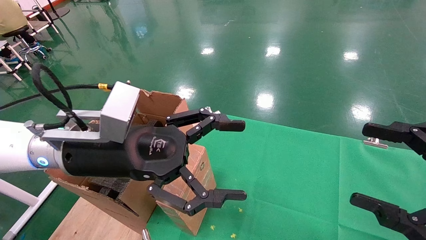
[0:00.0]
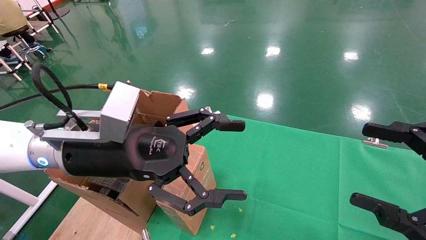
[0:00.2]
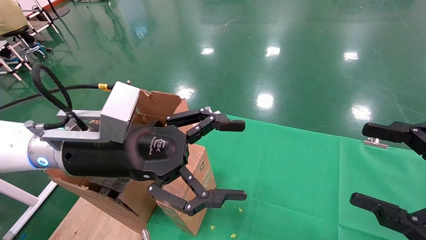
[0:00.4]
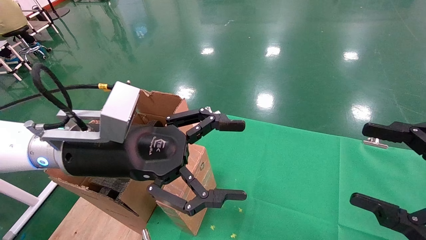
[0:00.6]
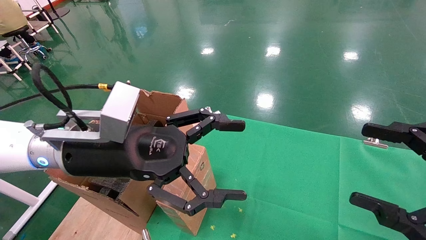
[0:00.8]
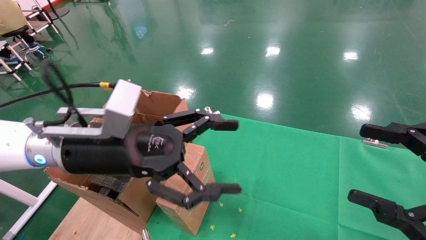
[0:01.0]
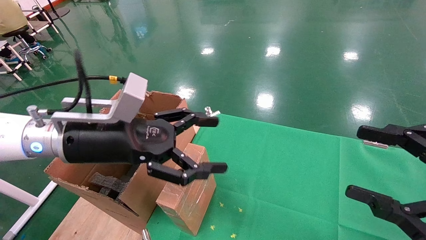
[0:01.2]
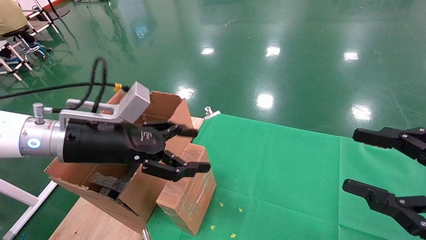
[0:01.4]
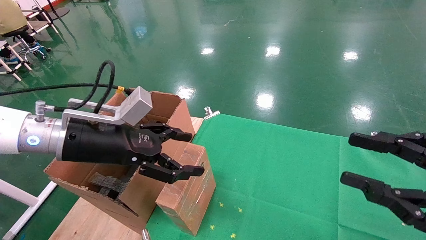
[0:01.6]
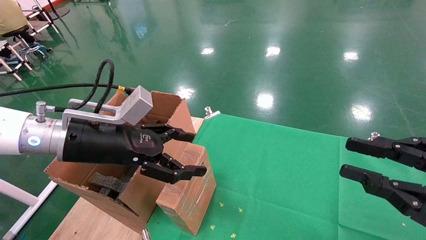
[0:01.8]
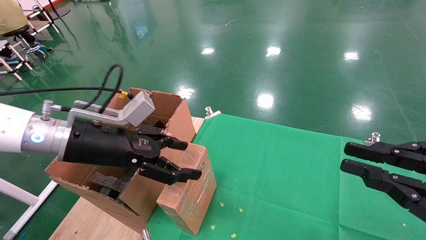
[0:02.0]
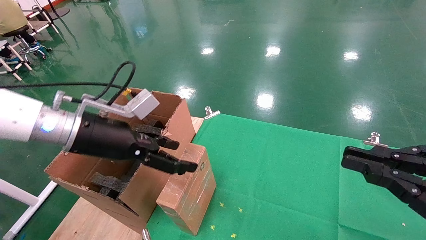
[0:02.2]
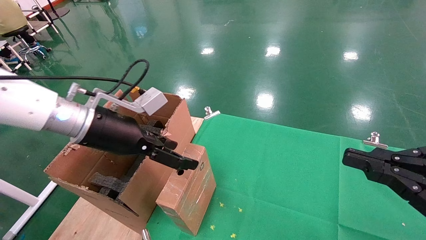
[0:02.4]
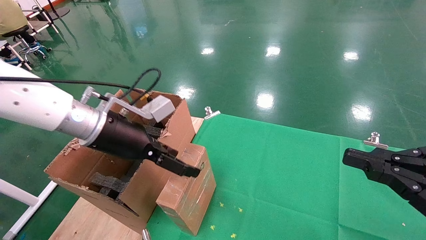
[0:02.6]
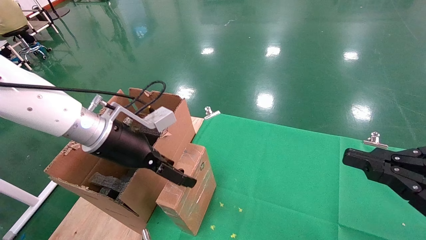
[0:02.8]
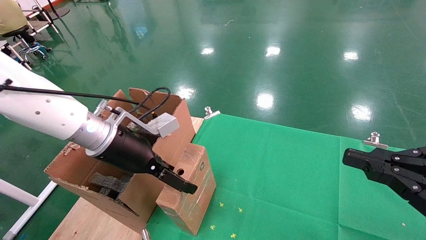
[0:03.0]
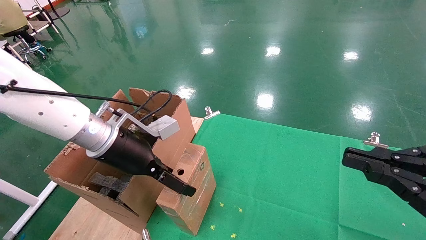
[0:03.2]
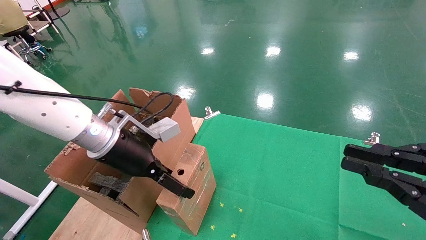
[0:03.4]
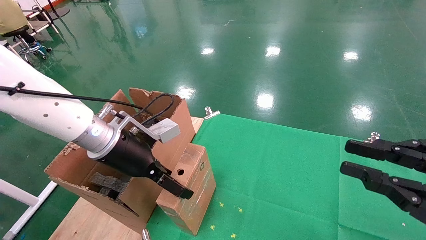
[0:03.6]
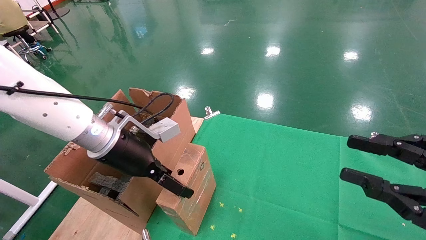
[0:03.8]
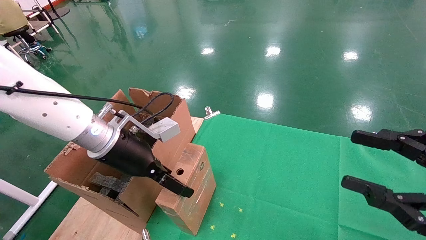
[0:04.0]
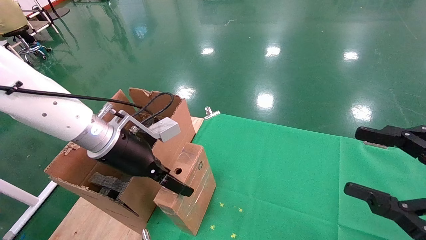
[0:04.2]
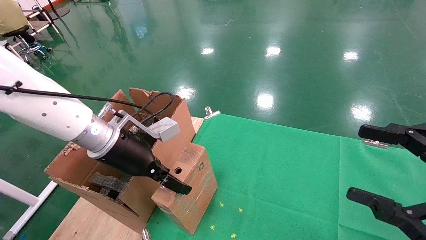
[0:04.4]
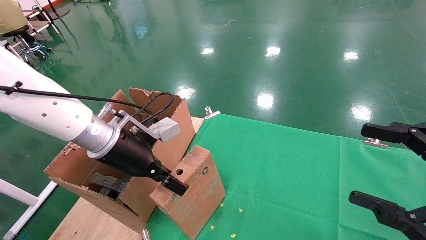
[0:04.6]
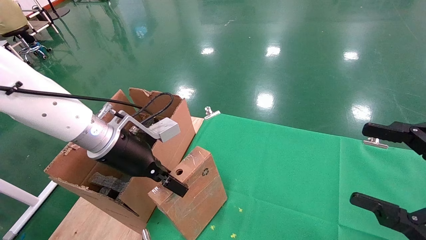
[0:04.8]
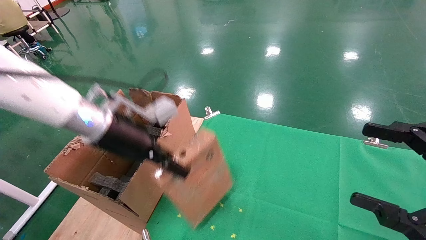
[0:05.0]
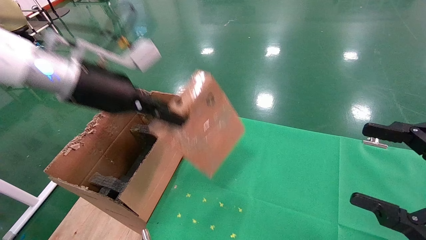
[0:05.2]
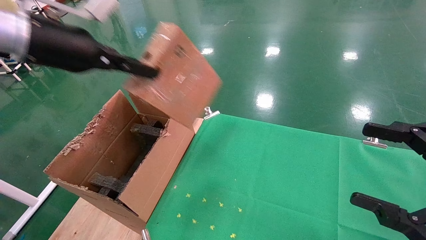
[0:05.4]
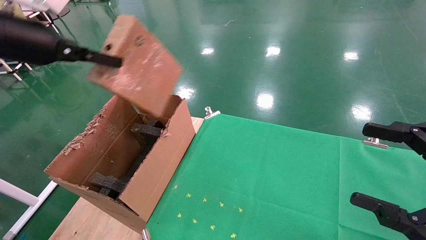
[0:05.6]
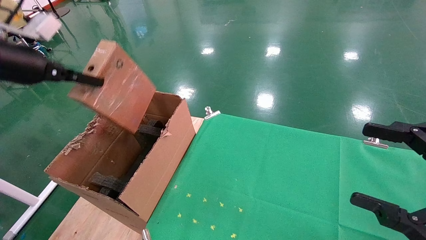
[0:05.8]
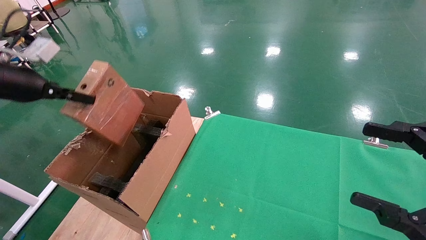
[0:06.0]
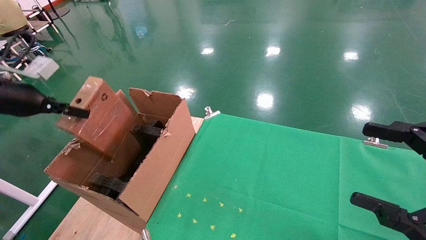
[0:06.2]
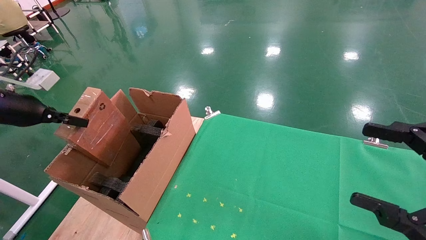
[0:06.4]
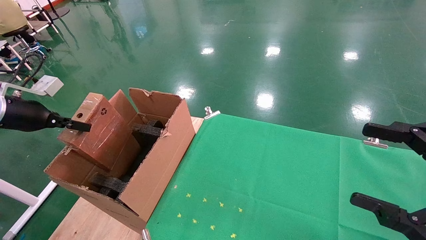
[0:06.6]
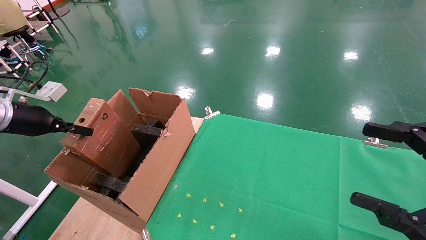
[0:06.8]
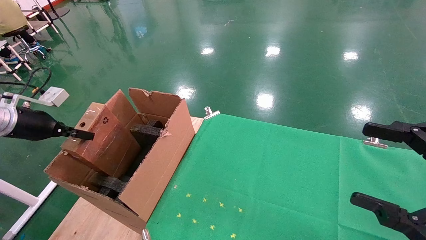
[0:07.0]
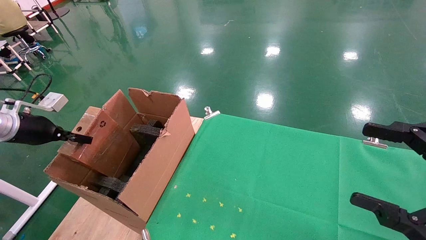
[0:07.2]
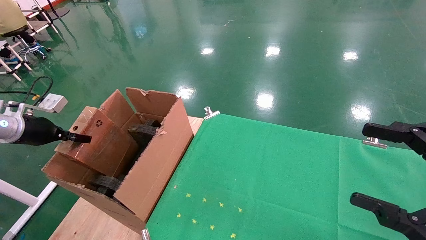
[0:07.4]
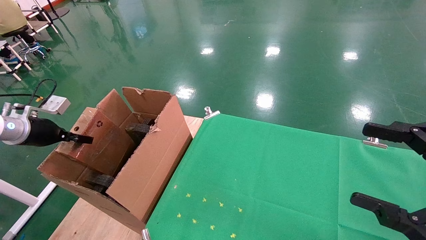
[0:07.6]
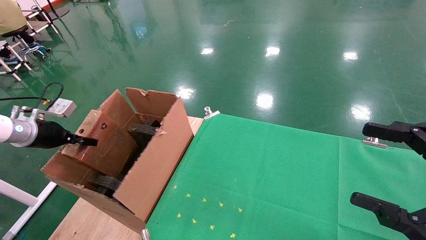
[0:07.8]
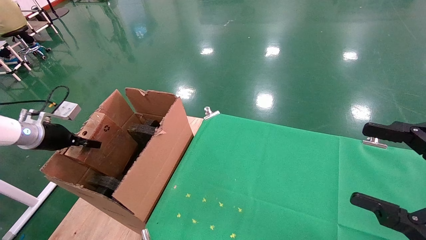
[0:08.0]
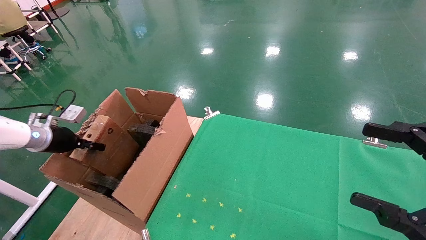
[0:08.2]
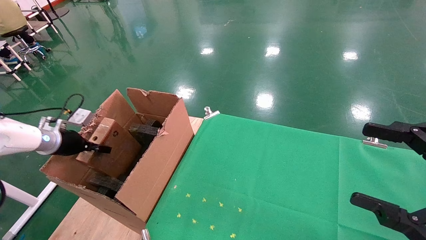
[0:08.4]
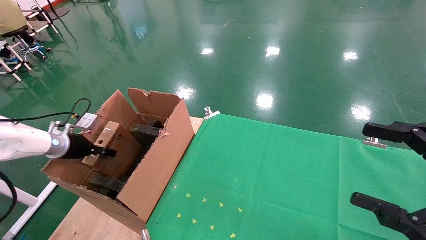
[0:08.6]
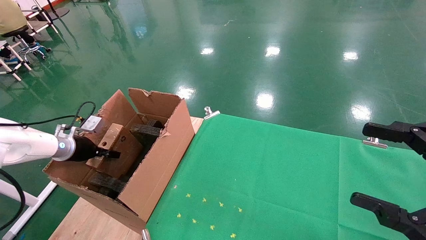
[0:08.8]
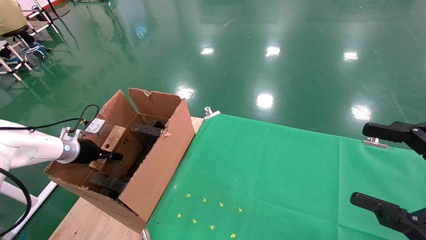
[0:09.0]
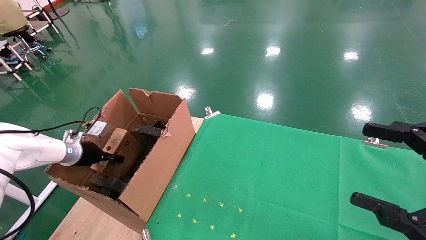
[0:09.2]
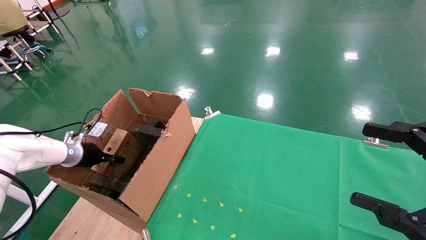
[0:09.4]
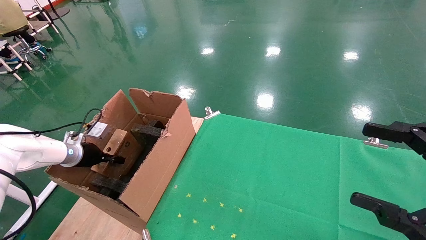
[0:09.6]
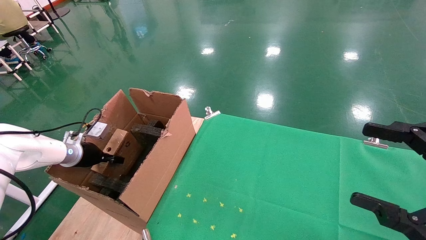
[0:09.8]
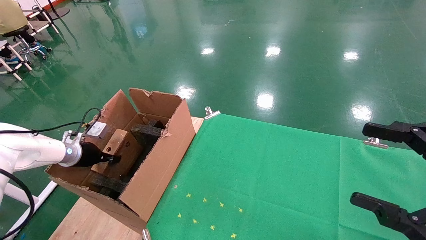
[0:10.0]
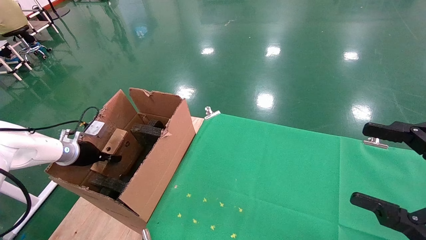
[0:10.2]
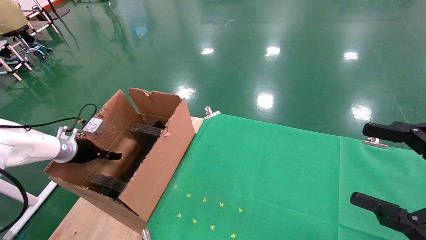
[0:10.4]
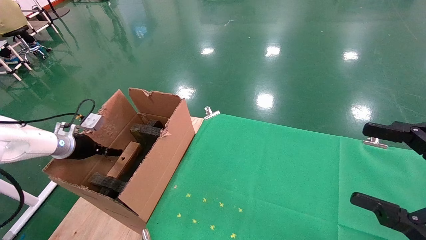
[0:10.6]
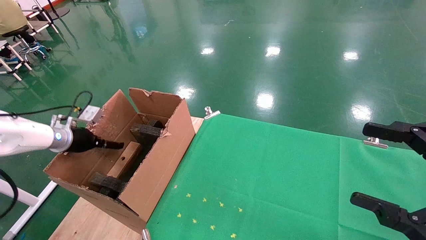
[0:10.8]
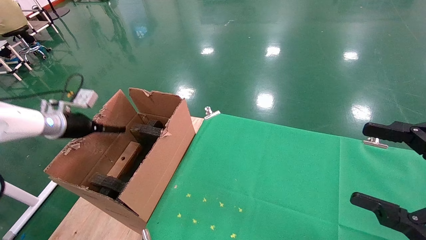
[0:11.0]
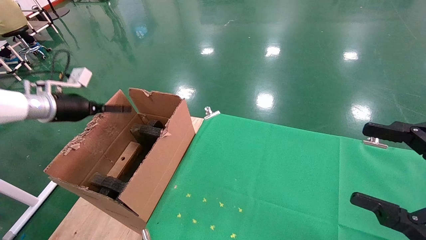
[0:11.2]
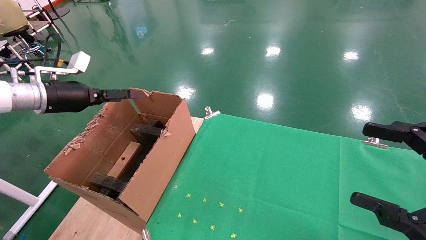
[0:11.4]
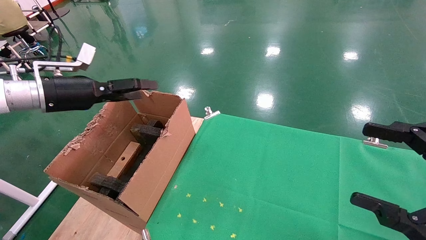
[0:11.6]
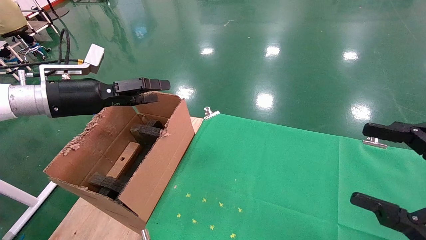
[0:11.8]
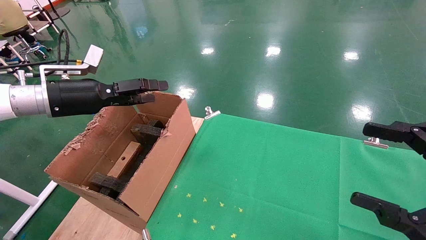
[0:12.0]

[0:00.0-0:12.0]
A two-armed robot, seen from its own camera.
Task of the whole recording: using a robotic arm to pick up a cardboard box and palace it the carton.
Step, 0:01.2 to 0:04.6: Pick up the mouse and the power cord paper box.
Step, 0:04.8 to 0:11.4: Place the mouse and the power cord paper box into the container.
0:00.0 to 0:01.6: The right gripper closes its fingers; the left gripper travels to the left by about 5 cm.
0:01.6 to 0:03.0: The left gripper moves approximately 5 cm. The right gripper closes.
0:03.0 to 0:04.4: The right gripper opens up, while the left gripper closes up.
0:04.4 to 0:06.0: The left gripper moves to the left and upward, roughly 25 cm, and closes its fingers.
0:06.0 to 0:07.6: The left gripper moves downward and to the left, some 15 cm.
0:07.6 to 0:09.0: The left gripper moves downward, forward and to the right, some 10 cm.
0:09.0 to 0:10.4: The left gripper opens its fingers.
0:10.4 to 0:12.0: The left gripper travels upward, to the right and backward by some 20 cm, and opens.

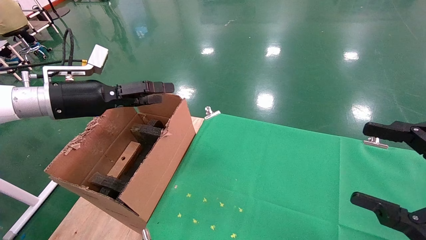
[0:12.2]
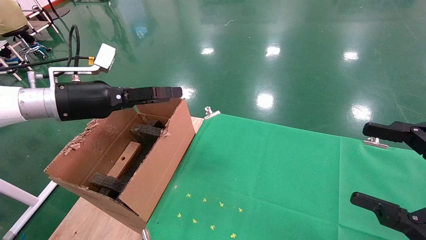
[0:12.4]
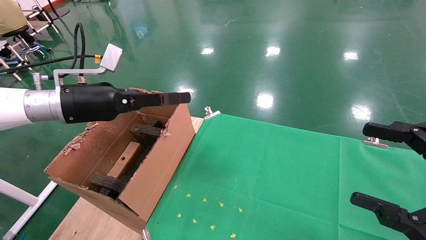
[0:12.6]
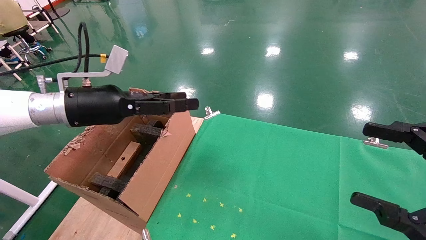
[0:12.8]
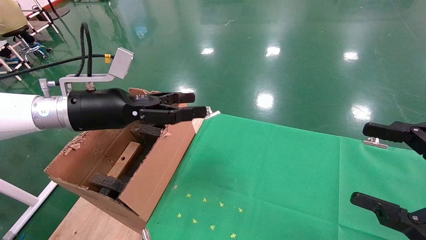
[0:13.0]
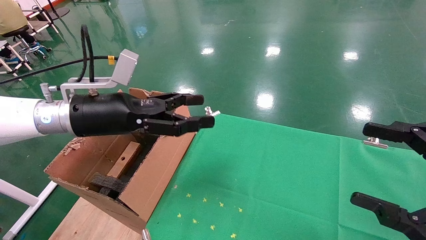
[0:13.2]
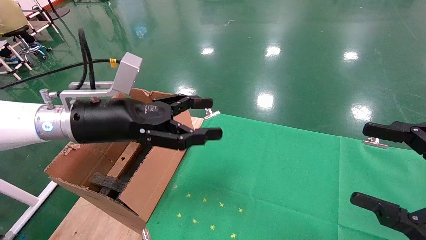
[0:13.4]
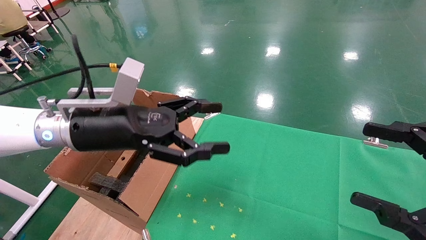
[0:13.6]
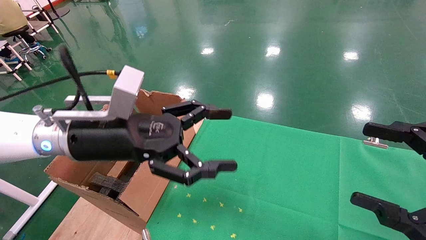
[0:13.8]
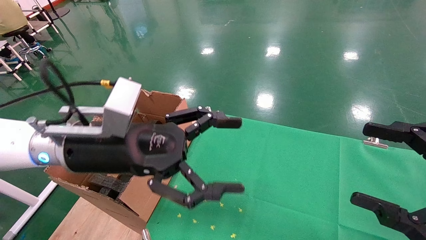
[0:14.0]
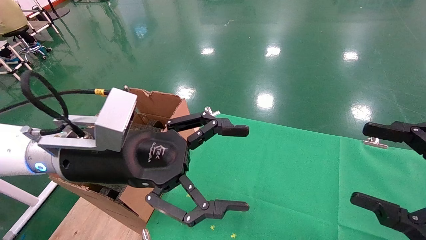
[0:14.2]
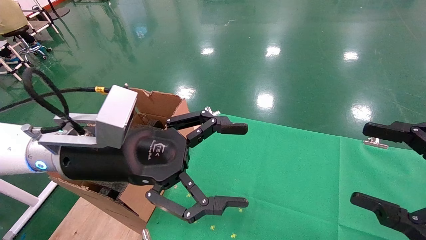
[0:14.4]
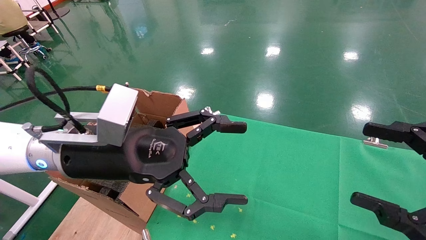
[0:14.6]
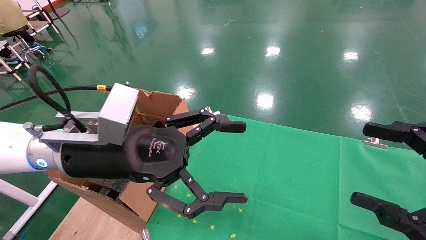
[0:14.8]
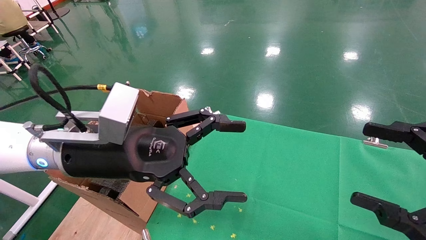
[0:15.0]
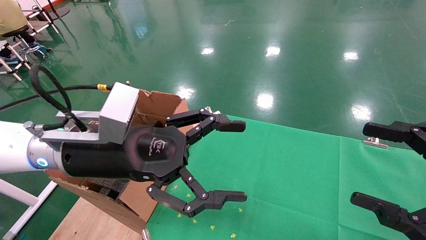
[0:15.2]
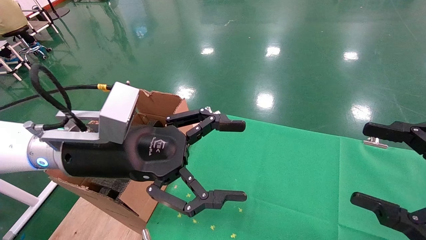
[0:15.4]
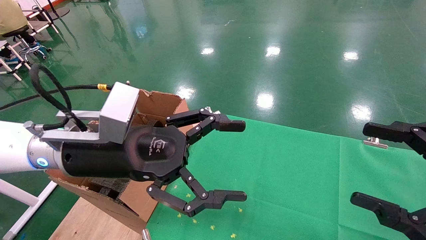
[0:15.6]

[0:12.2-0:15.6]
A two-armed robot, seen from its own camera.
Task of the whole recording: using a robotic arm to pick up a cardboard box and palace it the carton.
0:12.2 to 0:13.8: The left gripper shifts some 15 cm to the right and backward.
0:13.8 to 0:15.6: The grippers stay close to where they were, moving slightly.

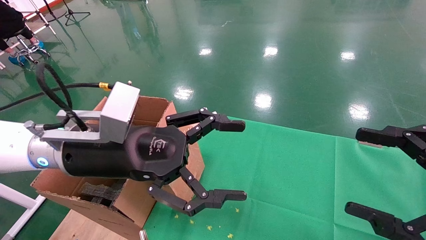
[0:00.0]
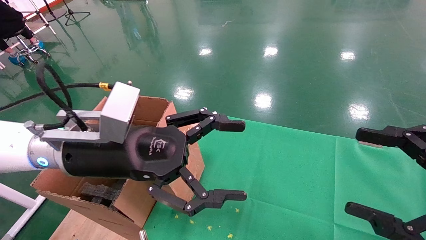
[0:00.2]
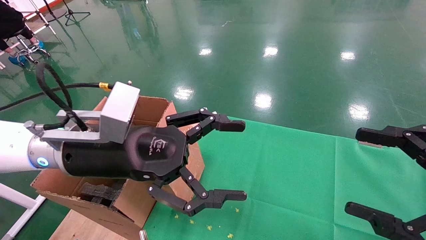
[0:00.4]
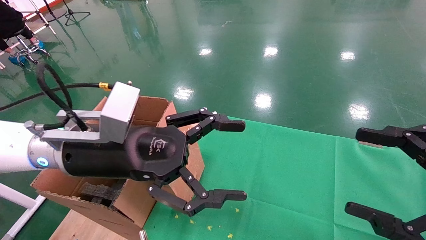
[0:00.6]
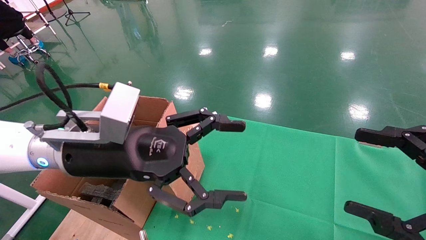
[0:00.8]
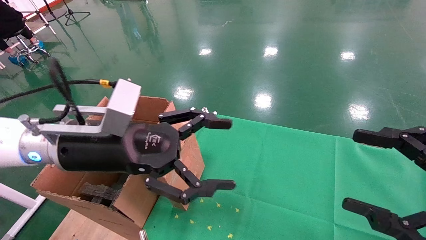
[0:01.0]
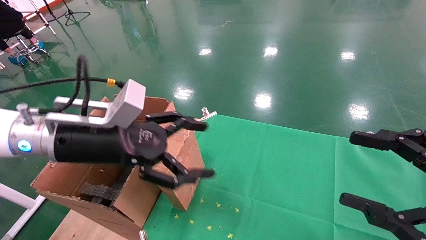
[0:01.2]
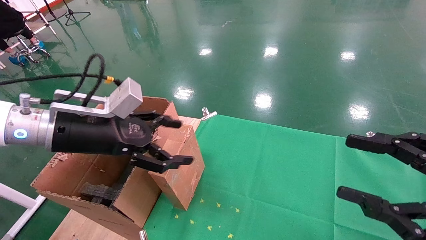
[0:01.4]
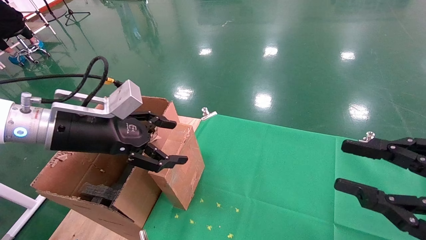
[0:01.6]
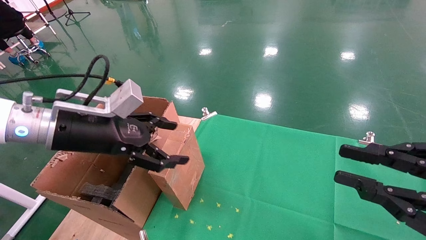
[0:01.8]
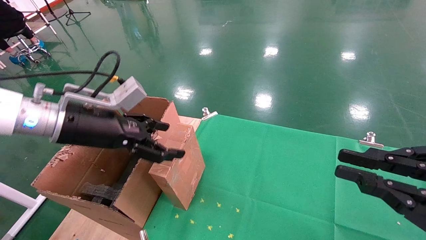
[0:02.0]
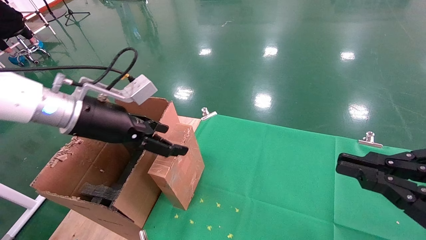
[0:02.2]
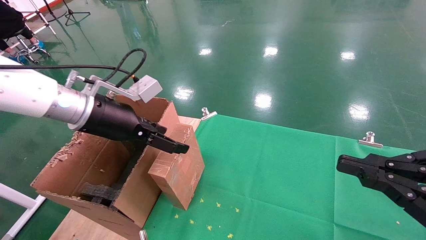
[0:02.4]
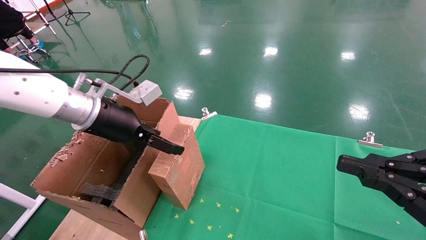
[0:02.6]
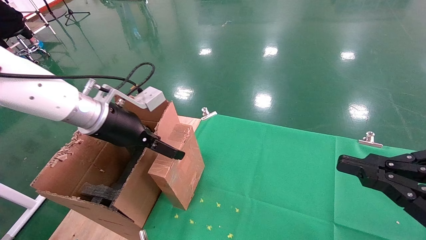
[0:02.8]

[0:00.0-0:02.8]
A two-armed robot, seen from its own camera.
Task of the whole recording: using a robotic arm to pick up a cardboard box and palace it the carton.
0:00.0 to 0:01.4: The left gripper moves to the left, approximately 5 cm.
0:01.4 to 0:02.8: The right gripper closes up. Meanwhile the left gripper travels forward by about 5 cm.
